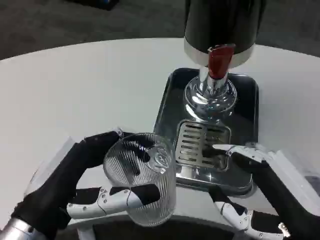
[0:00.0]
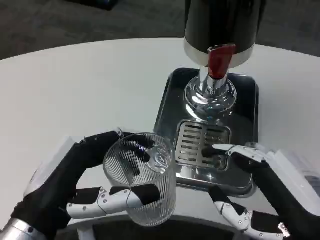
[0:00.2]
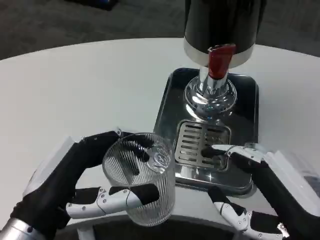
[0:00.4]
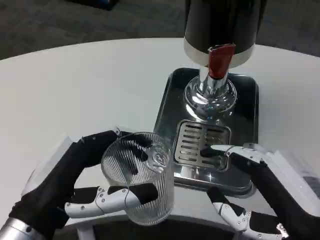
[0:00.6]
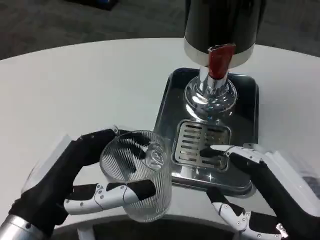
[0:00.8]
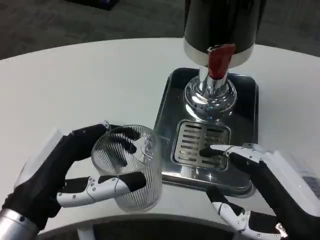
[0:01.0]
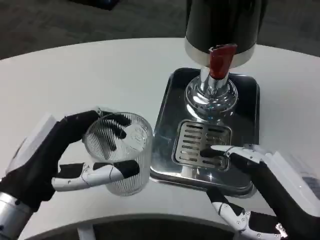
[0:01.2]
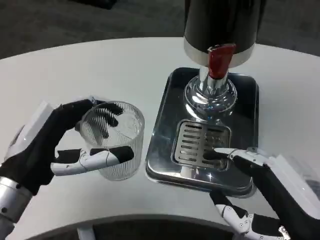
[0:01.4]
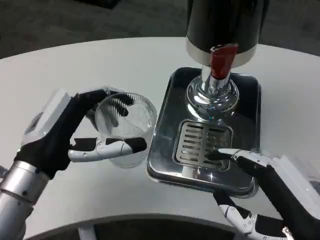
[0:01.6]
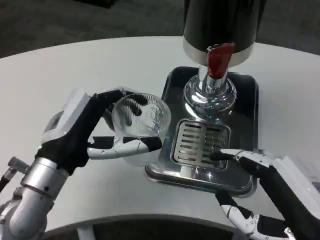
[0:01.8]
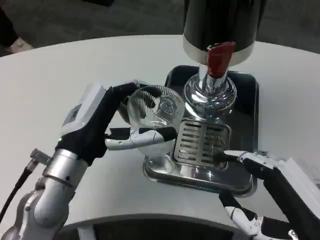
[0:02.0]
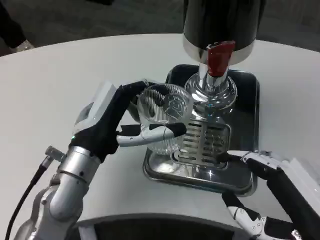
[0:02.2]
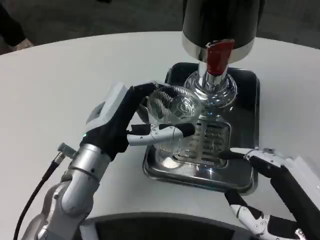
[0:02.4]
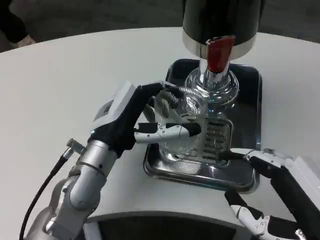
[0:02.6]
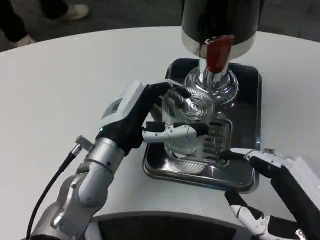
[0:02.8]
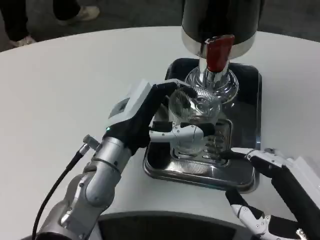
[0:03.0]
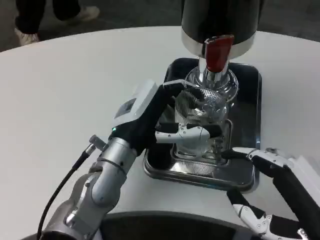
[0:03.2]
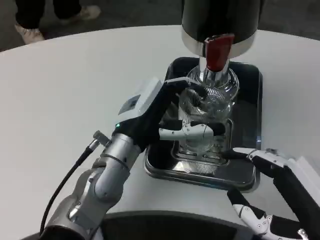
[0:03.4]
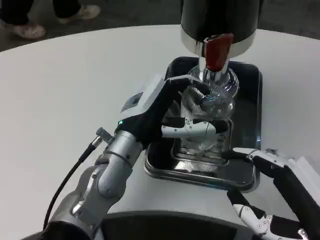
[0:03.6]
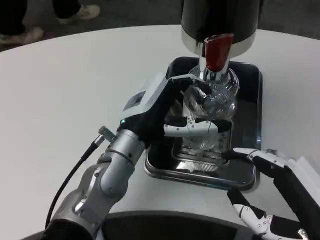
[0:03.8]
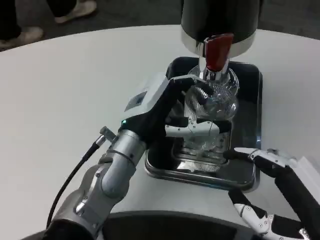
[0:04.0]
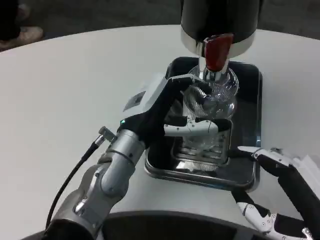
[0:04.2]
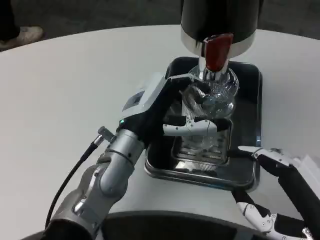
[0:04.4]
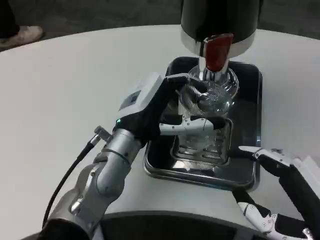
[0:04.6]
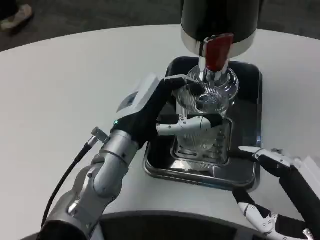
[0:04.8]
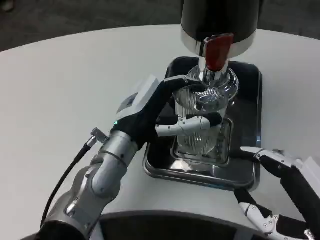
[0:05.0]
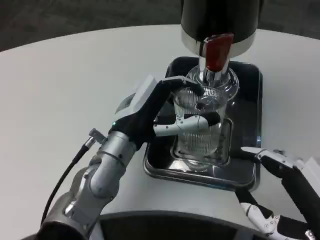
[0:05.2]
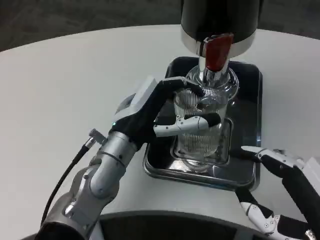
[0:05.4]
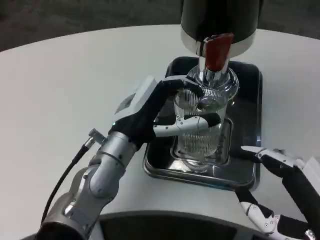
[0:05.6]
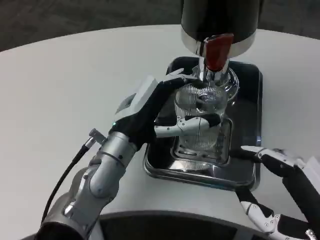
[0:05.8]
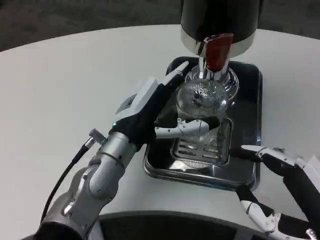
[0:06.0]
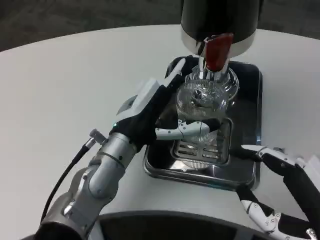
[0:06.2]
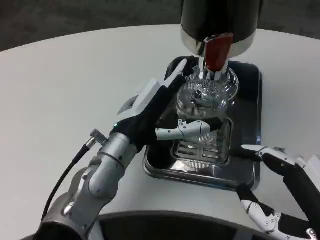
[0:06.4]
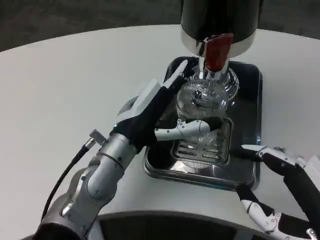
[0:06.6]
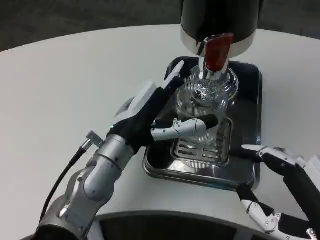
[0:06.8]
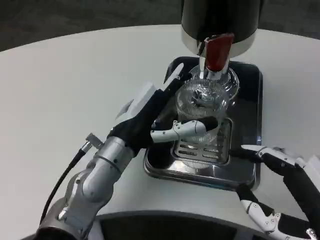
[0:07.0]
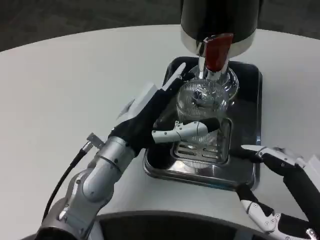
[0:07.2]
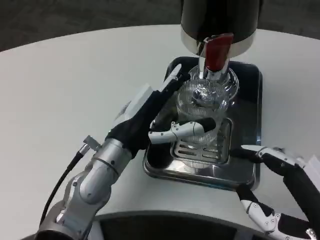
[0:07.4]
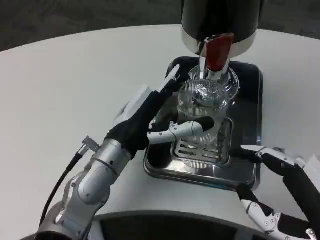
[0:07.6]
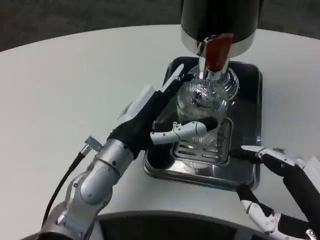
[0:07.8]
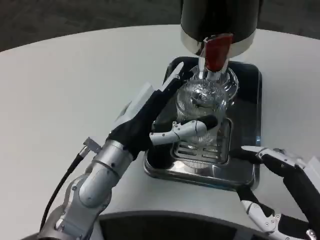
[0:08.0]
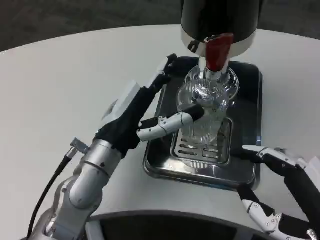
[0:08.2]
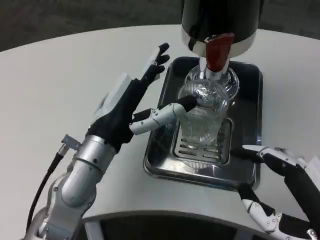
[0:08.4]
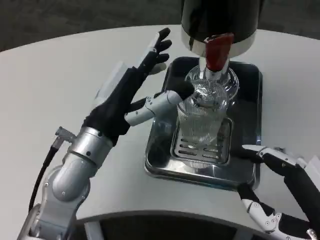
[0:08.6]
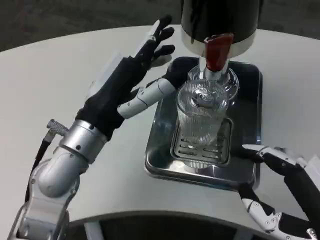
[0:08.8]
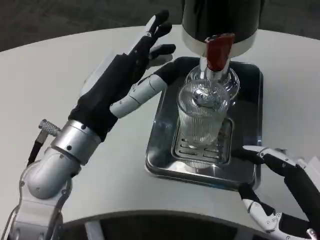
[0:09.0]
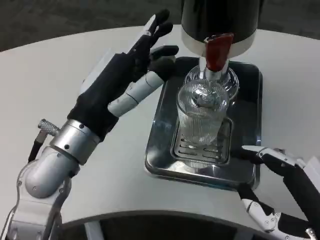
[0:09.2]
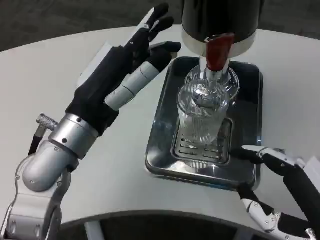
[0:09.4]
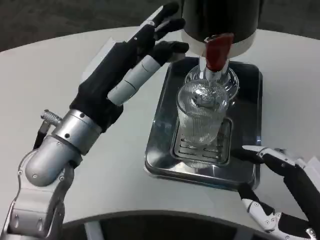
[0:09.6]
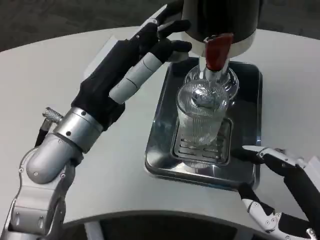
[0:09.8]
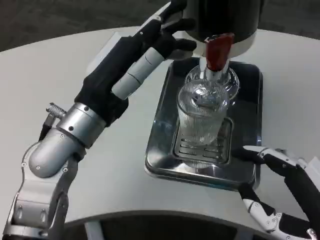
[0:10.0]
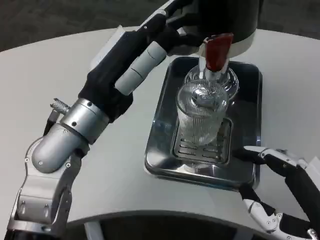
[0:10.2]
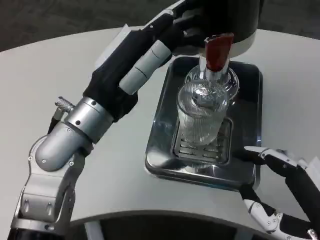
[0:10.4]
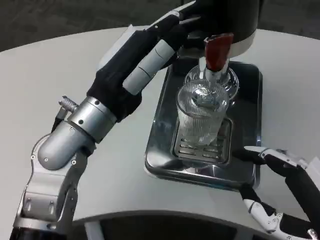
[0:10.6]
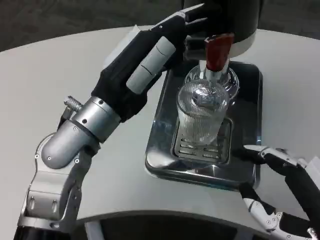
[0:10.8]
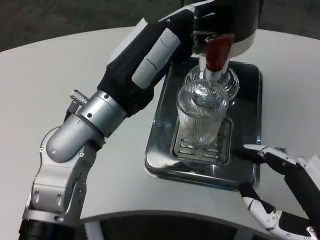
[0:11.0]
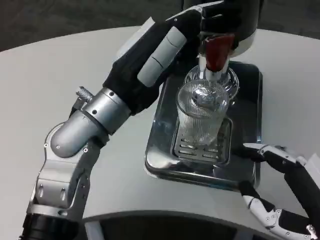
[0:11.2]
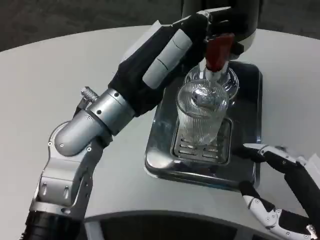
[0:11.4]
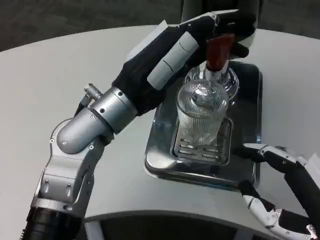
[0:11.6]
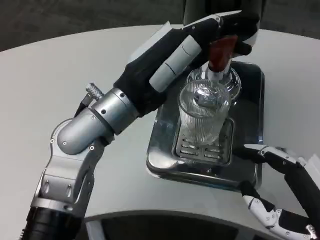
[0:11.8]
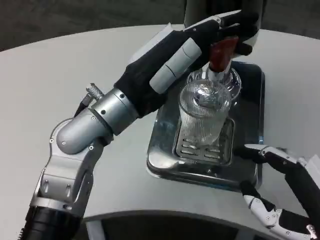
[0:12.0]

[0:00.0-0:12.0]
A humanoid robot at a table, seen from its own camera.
Task of the whole recording: Grasp the cup under the faucet to collect the drink, then remove the cup.
0:00.0 to 0:01.6: The left hand heads forward, covering some 10 cm.
0:01.6 to 0:03.0: The left hand shifts roughly 10 cm to the right and forward.
0:04.4 to 0:06.0: Both hands stay put.
0:06.0 to 0:07.6: The hands make only small movements.
0:07.6 to 0:09.0: The left hand moves upward, approximately 5 cm.
0:09.0 to 0:10.4: The hands stay close to where they were, moving slightly.

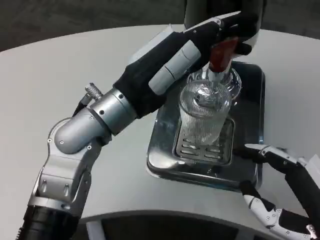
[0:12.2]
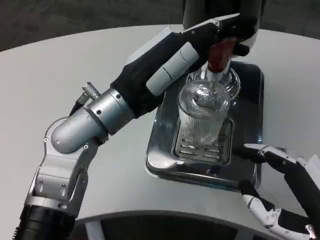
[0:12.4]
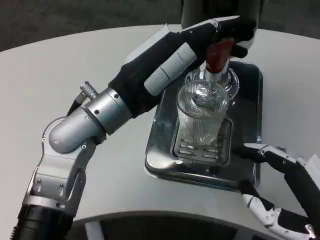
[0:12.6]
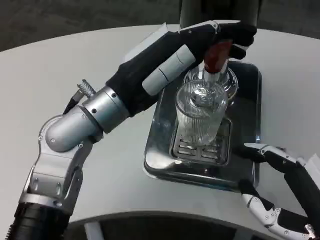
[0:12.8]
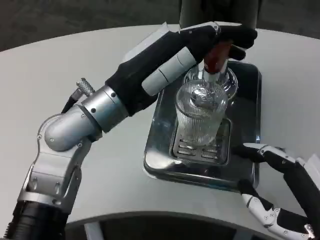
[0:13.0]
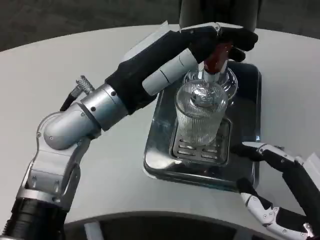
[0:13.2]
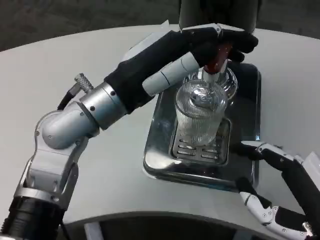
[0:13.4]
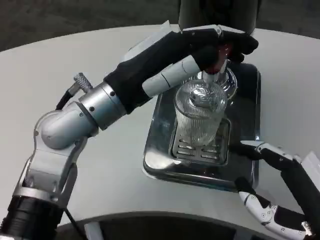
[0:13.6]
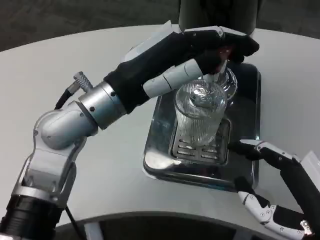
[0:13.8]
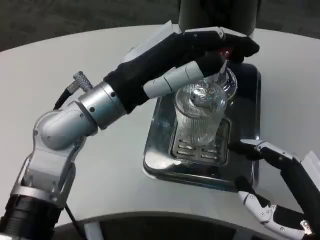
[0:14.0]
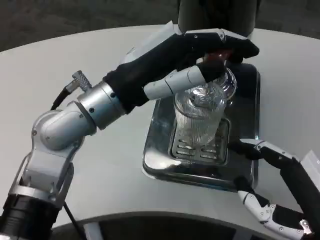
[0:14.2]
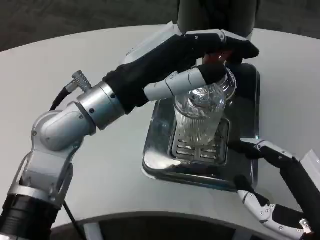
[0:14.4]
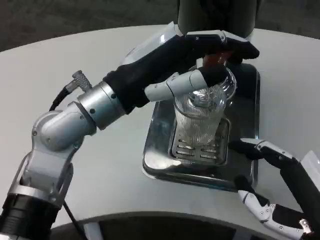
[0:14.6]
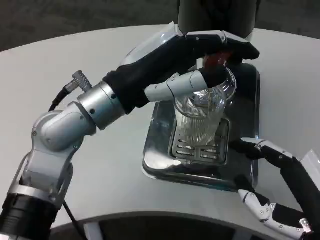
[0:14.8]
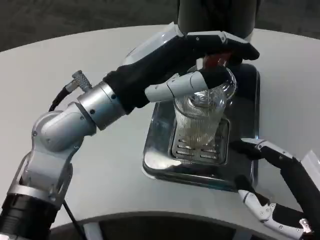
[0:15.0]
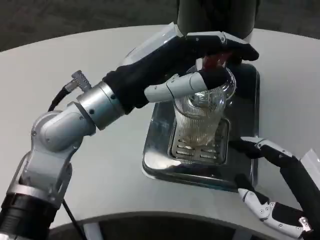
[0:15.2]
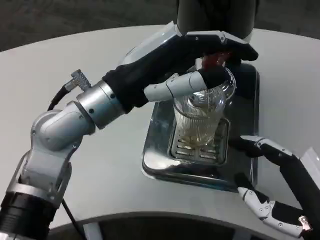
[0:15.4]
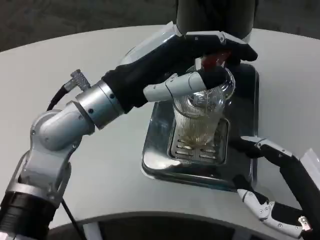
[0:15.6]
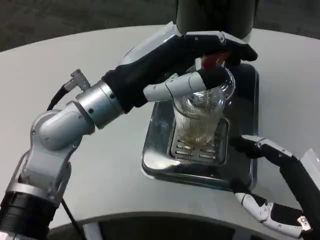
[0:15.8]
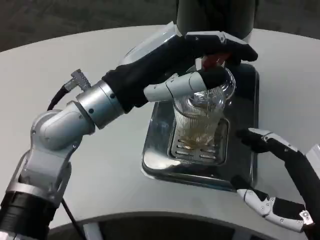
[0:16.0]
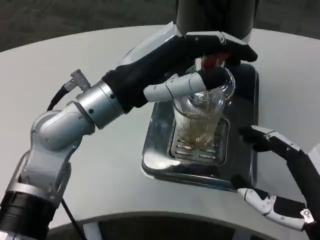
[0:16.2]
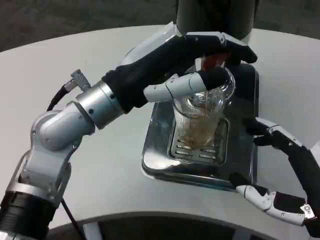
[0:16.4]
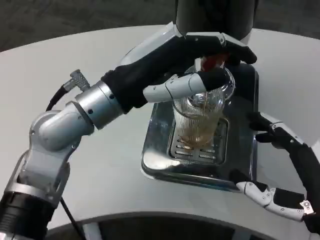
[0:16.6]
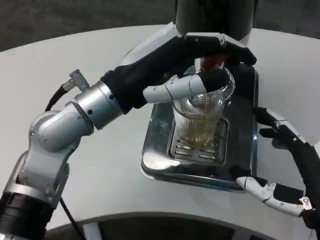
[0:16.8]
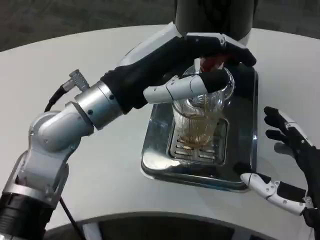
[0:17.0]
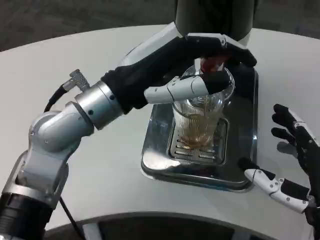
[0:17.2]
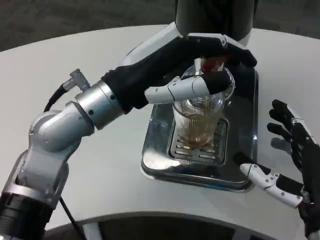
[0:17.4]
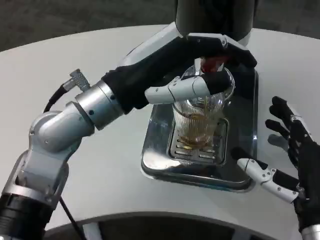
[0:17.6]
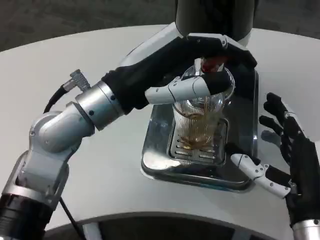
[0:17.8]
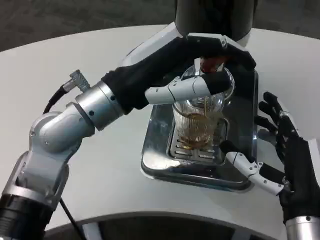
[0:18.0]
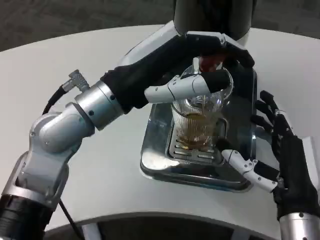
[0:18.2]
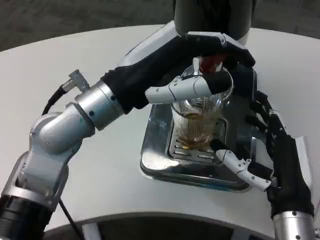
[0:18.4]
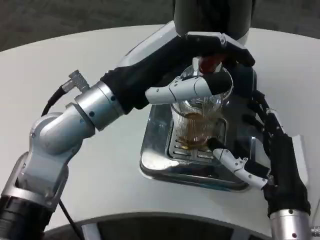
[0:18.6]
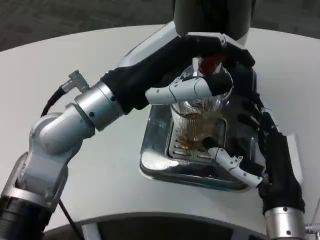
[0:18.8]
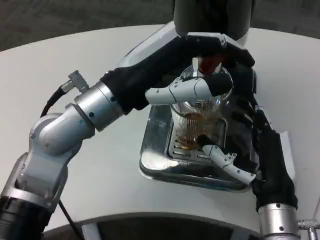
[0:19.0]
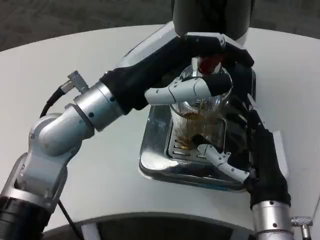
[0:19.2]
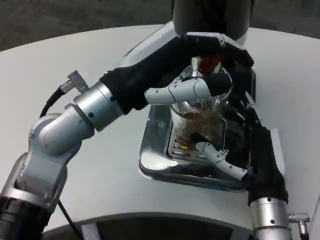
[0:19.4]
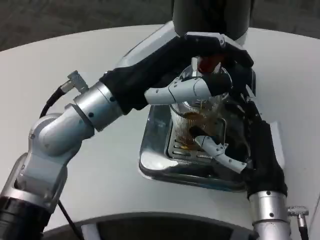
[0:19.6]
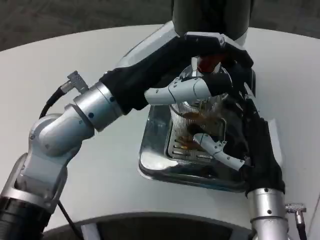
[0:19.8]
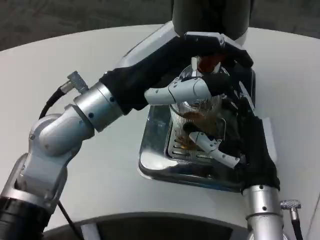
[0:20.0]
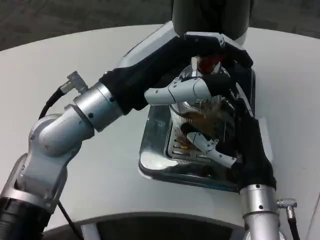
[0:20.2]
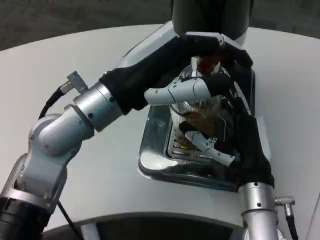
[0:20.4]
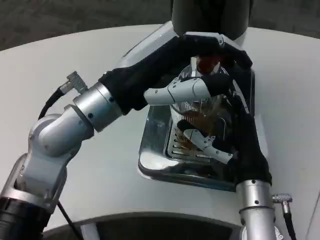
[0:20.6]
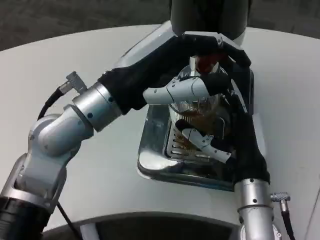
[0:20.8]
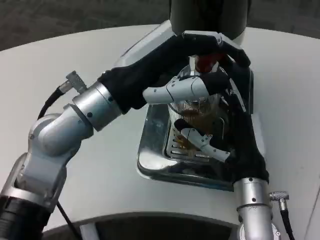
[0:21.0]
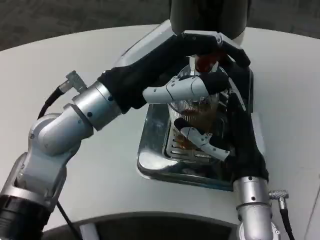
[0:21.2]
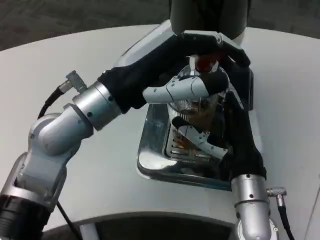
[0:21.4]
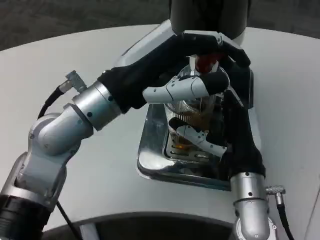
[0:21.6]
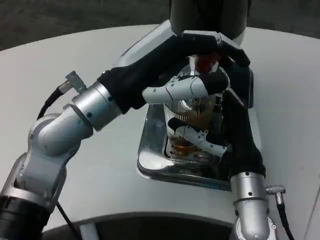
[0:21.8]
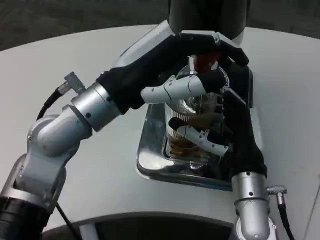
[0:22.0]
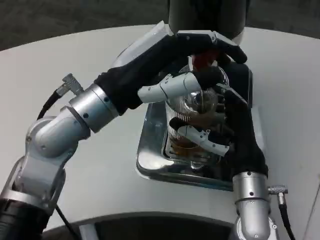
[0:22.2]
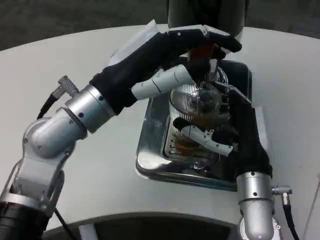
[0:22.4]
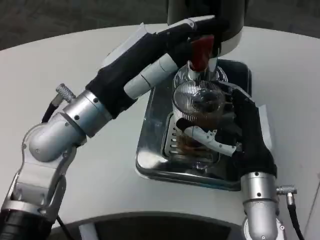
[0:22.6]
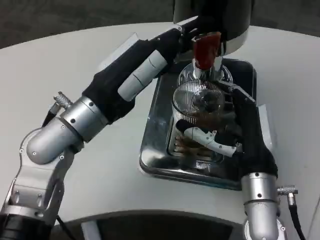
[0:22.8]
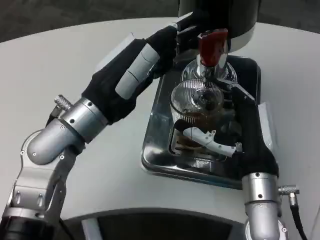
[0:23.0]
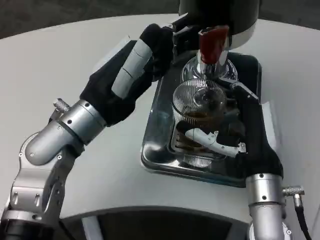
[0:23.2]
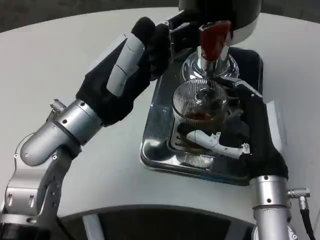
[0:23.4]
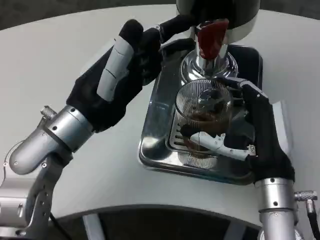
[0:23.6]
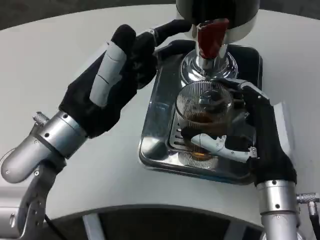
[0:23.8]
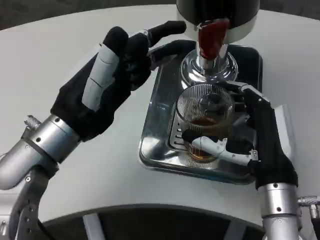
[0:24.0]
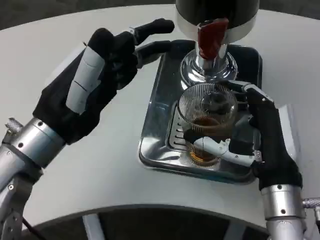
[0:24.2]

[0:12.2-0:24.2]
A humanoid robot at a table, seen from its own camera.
Task of the whole recording: Grasp the cup under the faucet to collect the drink, then remove the cup.
0:13.8 to 0:16.6: The hands stay close to where they were, moving slightly.
0:16.6 to 0:18.2: The right hand heads forward, covering about 5 cm.
0:18.2 to 0:19.8: The right hand ends up approximately 5 cm from where it was.
0:19.8 to 0:21.2: There are only small adjustments of the hands.
0:22.6 to 0:24.2: The left hand goes about 5 cm backward.
